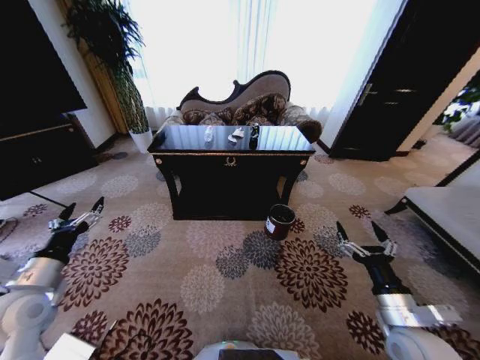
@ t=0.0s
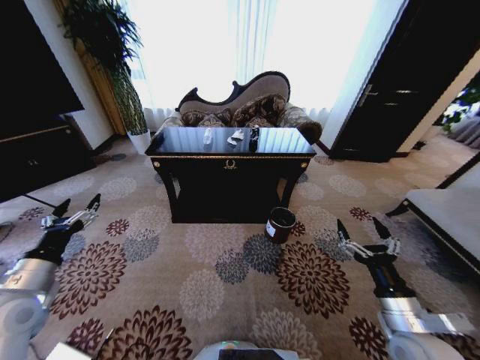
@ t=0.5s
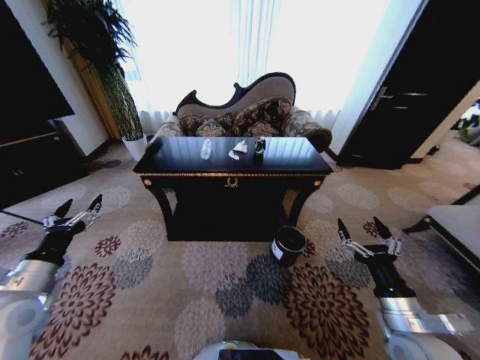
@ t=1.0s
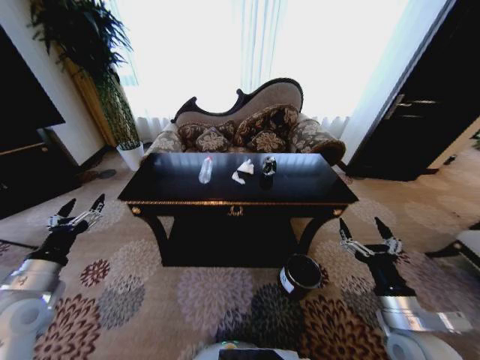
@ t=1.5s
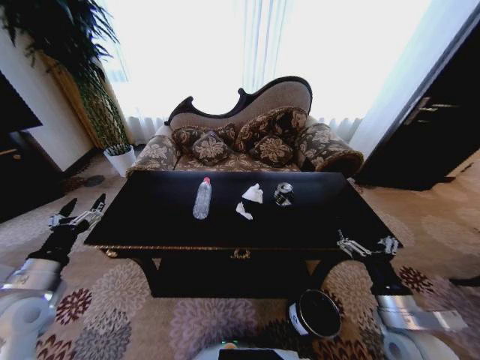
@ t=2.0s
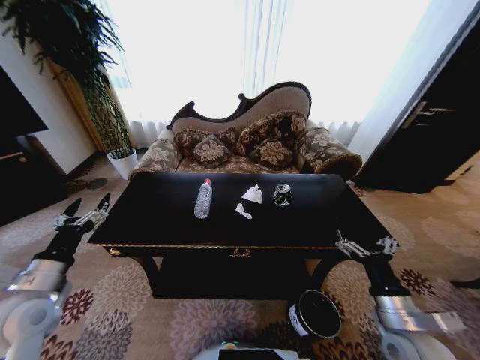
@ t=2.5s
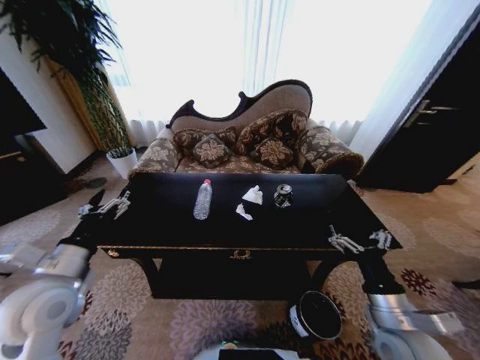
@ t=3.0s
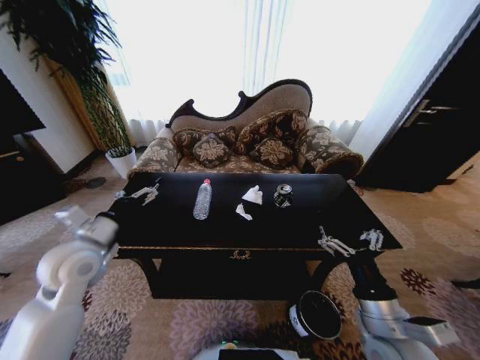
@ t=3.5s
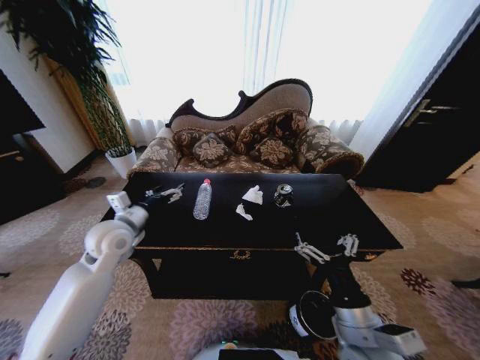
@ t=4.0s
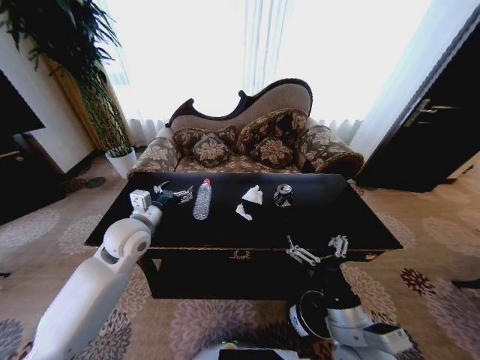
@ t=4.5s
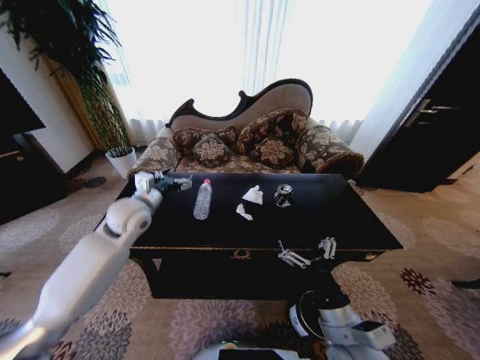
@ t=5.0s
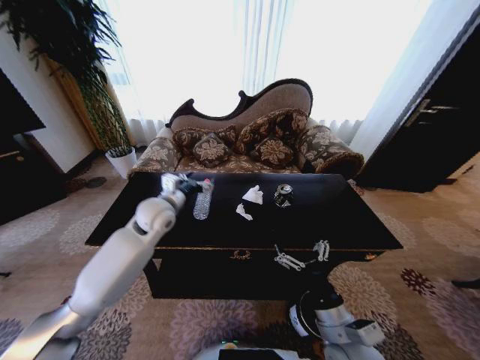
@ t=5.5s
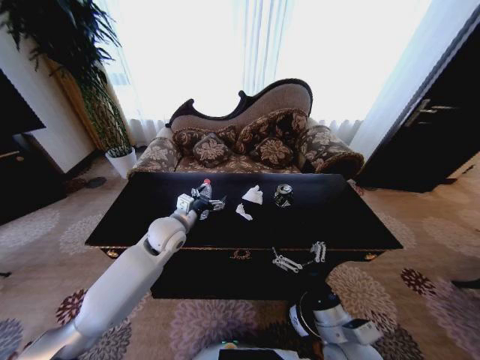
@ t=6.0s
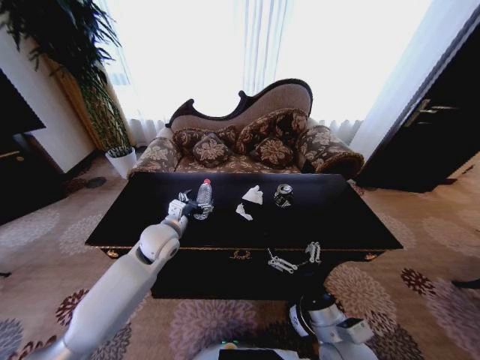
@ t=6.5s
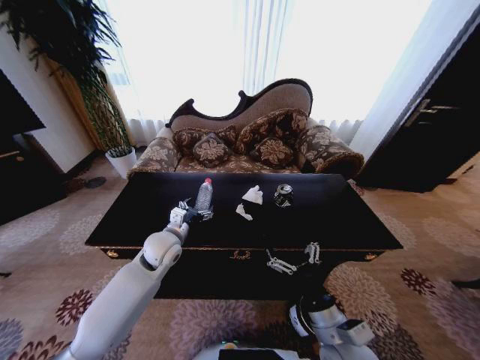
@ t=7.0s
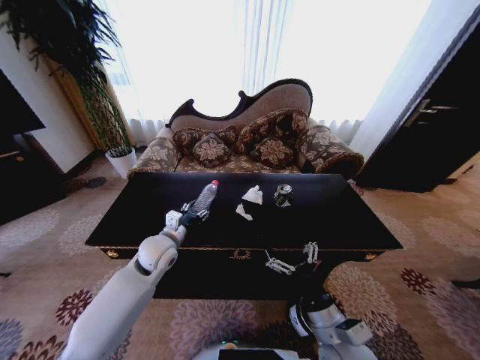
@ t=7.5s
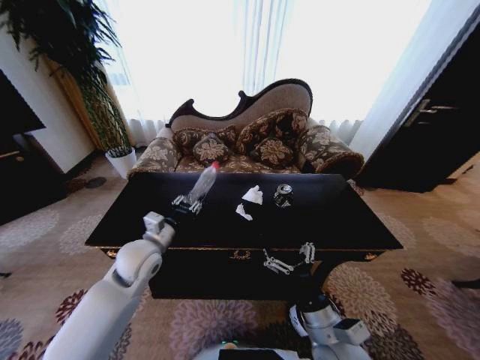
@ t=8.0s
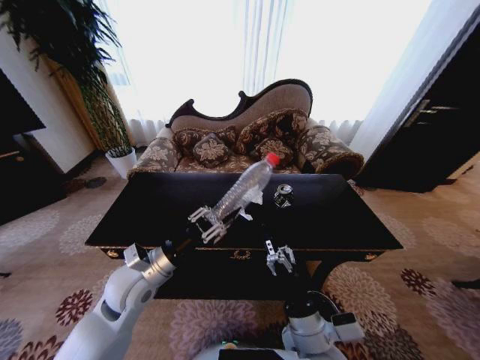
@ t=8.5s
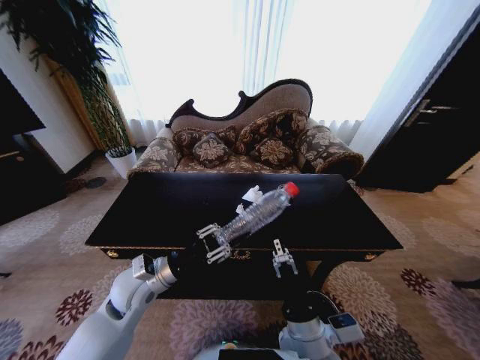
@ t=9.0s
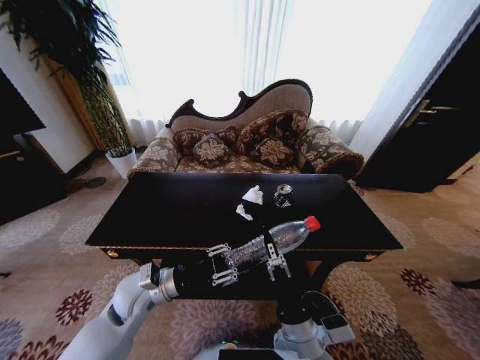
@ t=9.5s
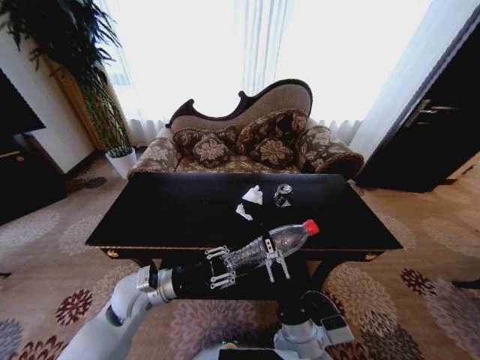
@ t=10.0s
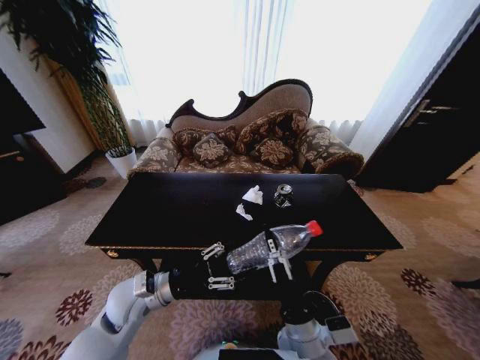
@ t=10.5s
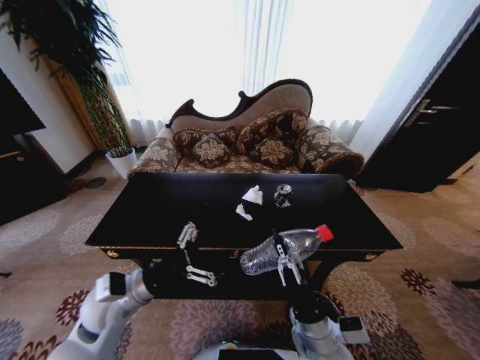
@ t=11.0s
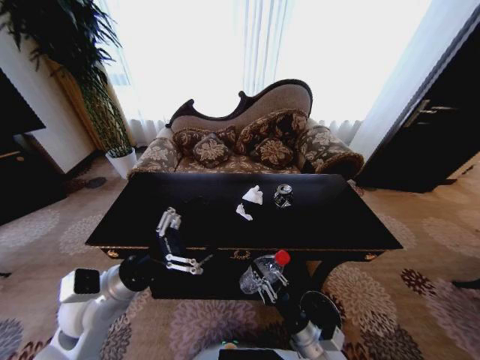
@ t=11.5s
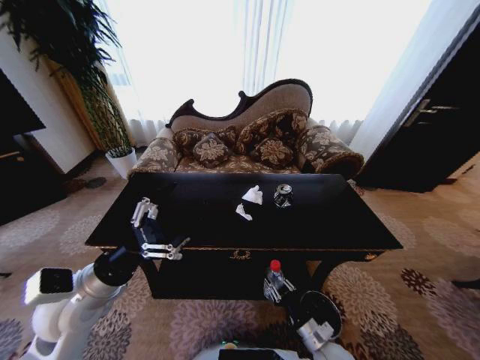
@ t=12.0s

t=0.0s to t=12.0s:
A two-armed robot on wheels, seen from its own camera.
Task of the whole recording: Move to the front of the table and place the trash on the table into the trash bin.
t=2.0s to t=4.0s: The left gripper heads forward and to the right, covering some 20 cm, while the right gripper travels to the left by roughly 10 cm.
t=4.0s to t=6.0s: The left gripper heads to the right, covering about 10 cm.
t=6.0s to t=8.0s: The left gripper moves backward and to the left, about 10 cm, and closes.
t=8.0s to t=10.0s: The left gripper is displaced backward and downward by some 10 cm, while the right gripper goes roughly 5 cm to the left, and closes up.
t=10.0s to t=12.0s: The left gripper moves upward and to the left, some 10 cm, and opens up. Meanwhile the right gripper travels downward and to the right by about 20 cm.

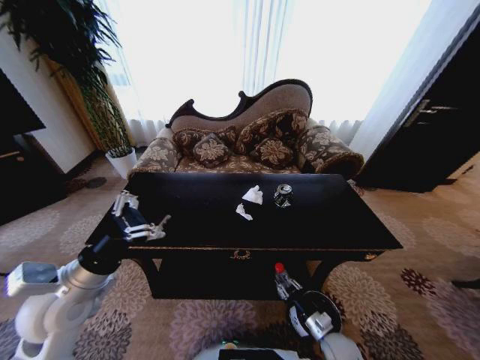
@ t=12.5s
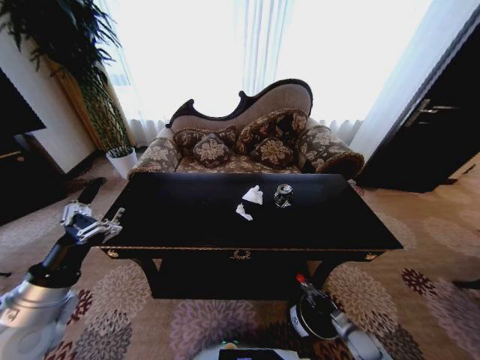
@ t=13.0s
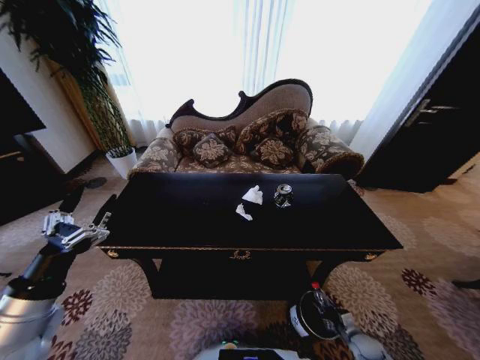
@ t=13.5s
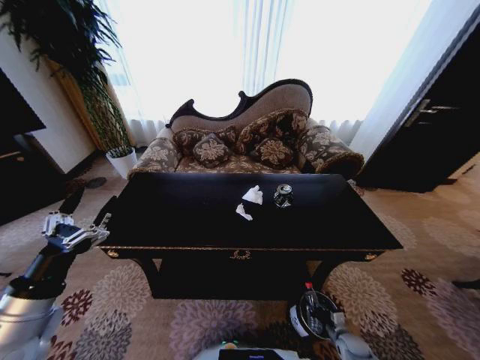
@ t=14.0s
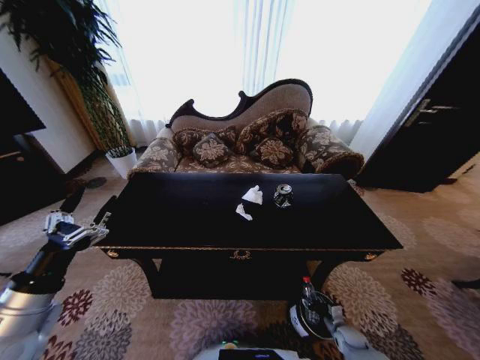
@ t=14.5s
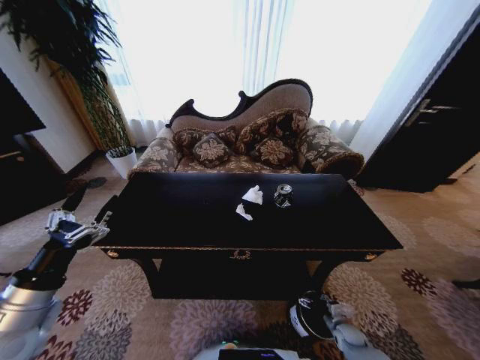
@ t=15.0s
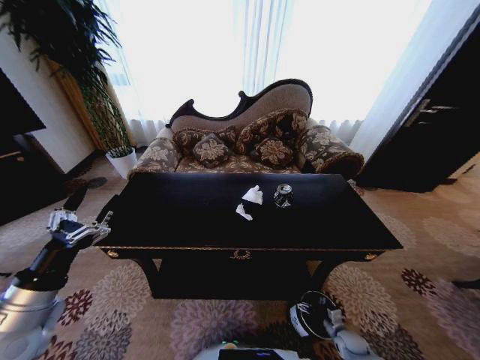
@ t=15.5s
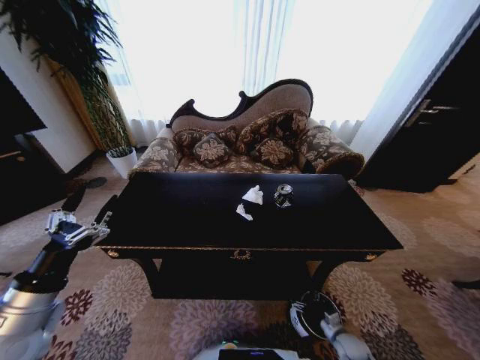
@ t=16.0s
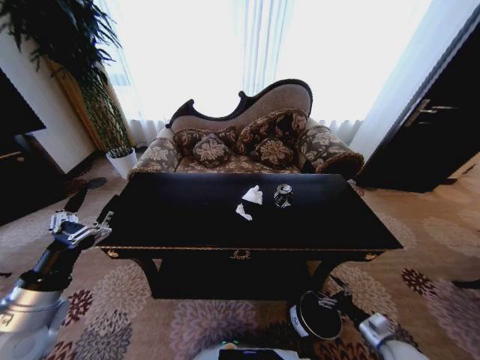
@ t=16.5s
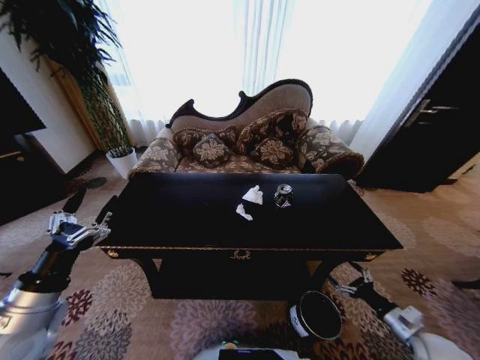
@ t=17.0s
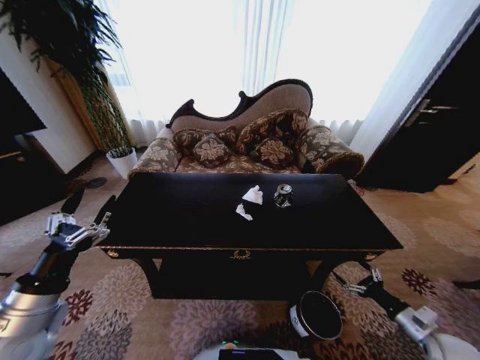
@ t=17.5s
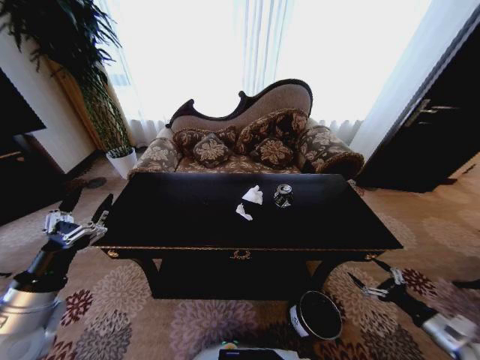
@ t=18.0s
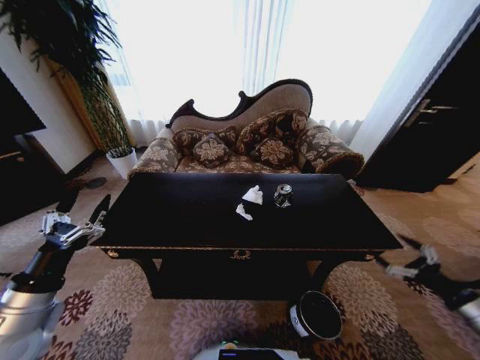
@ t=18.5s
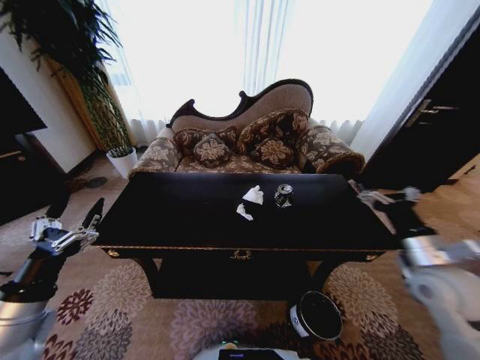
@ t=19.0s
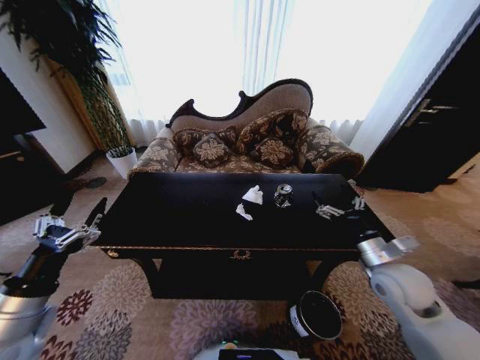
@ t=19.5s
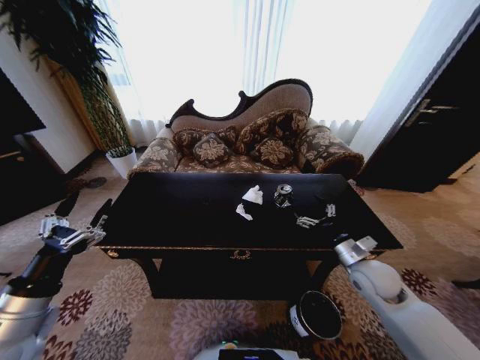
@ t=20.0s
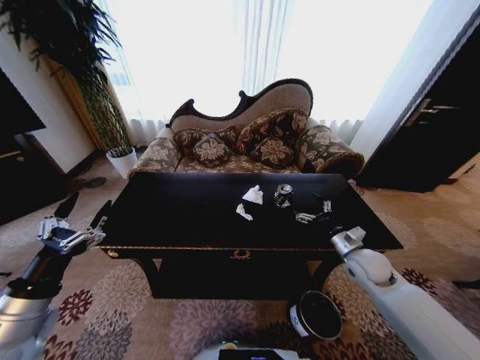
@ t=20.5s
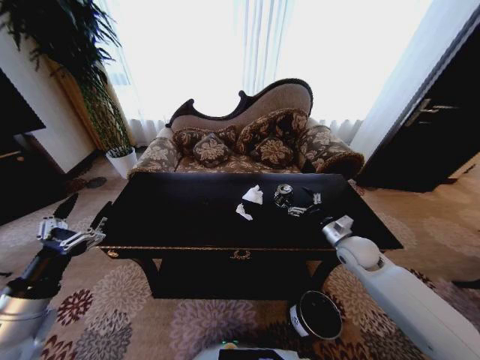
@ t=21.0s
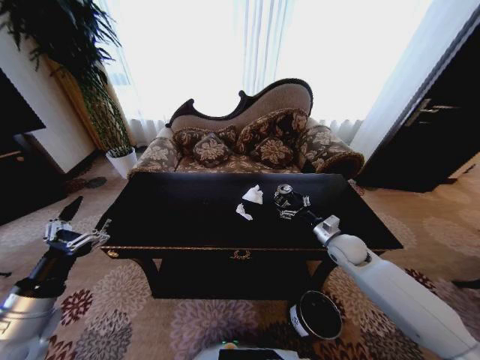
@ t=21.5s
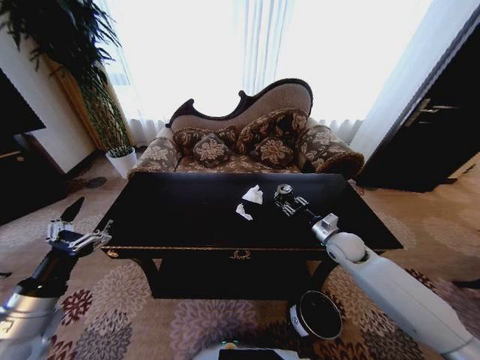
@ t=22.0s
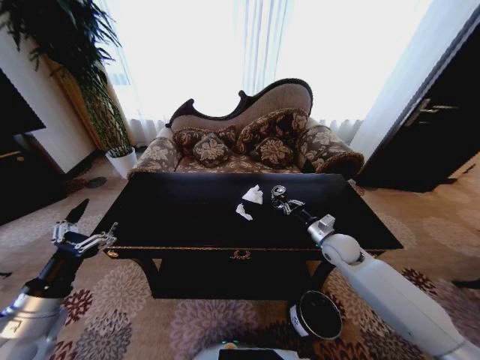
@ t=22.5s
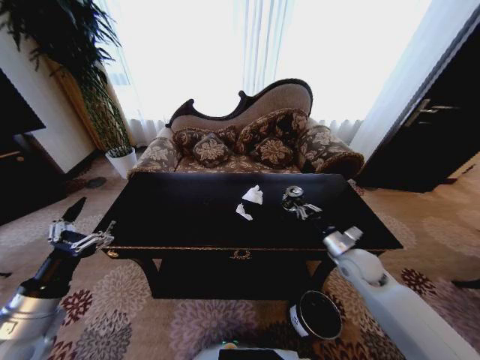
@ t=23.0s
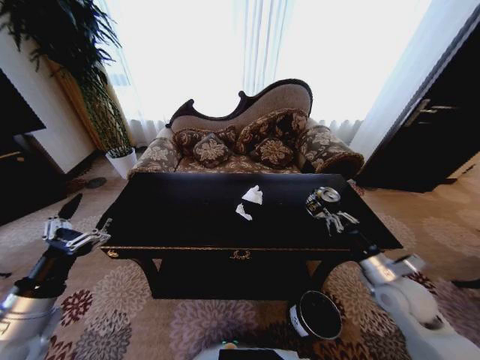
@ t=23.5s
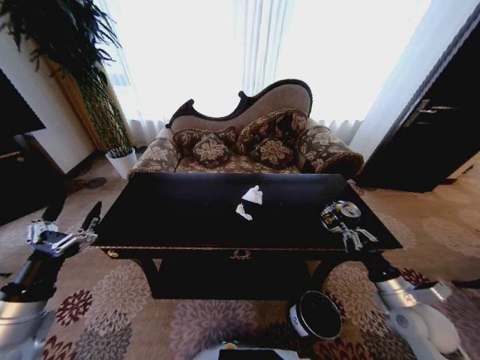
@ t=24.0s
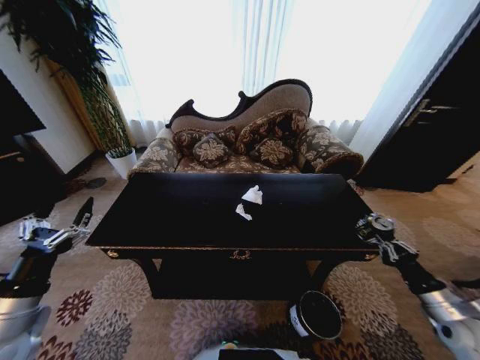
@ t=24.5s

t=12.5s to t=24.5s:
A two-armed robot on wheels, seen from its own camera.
Task of the whole recording: Move to the front of the table and place the trash on the table into the trash bin.
t=12.5s to t=14.5s: The right gripper moves to the right and downward, about 15 cm. The left gripper heads backward and to the left, covering about 10 cm.
t=14.5s to t=16.5s: The right gripper travels upward by approximately 15 cm, and opens up.
t=16.5s to t=18.5s: The right gripper heads upward and to the right, covering about 25 cm.
t=18.5s to t=20.5s: The right gripper heads to the left and forward, covering about 30 cm.
t=20.5s to t=22.5s: The right gripper shifts approximately 5 cm forward, and closes up.
t=22.5s to t=24.5s: The right gripper is displaced backward and to the right by approximately 30 cm.

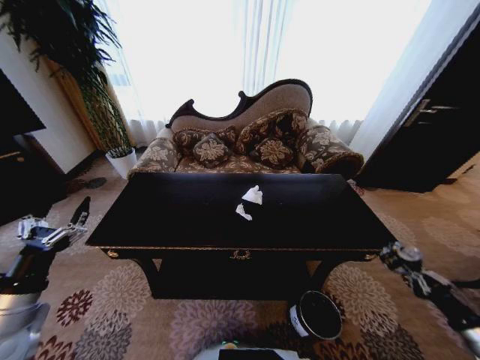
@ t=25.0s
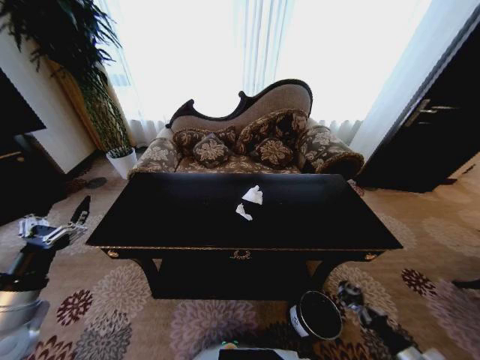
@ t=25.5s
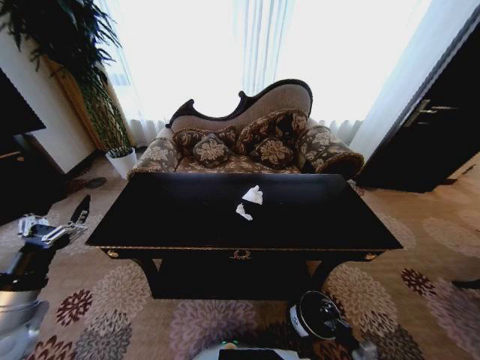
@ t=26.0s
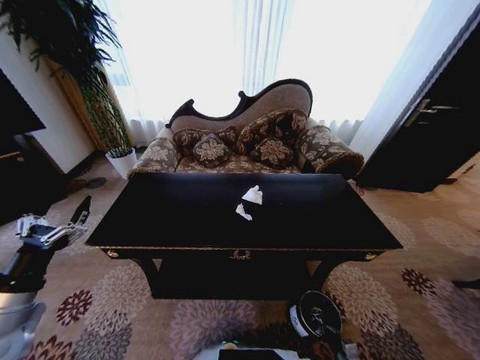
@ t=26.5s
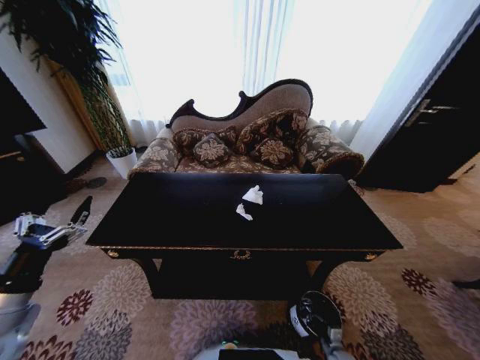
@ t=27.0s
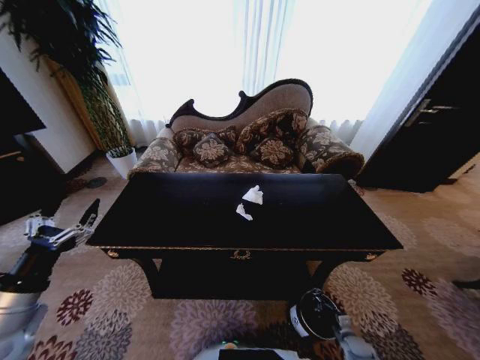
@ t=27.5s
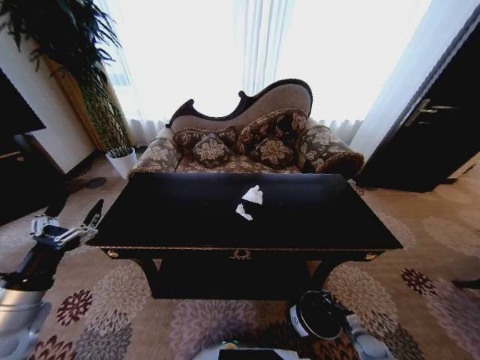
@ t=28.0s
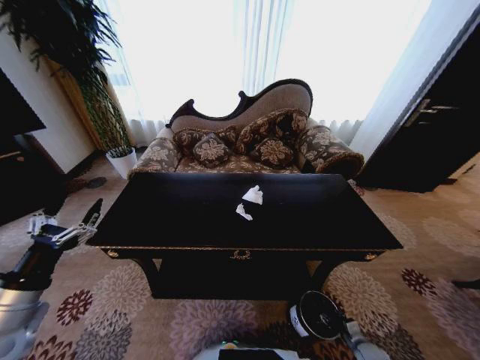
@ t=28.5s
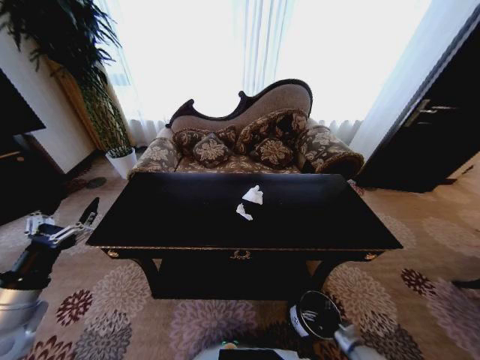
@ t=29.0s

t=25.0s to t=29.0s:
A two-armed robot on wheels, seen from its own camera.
Task of the whole recording: Move to the front of the table and place the trash on the table into the trash bin.
t=25.0s to t=27.0s: The right gripper moves downward and to the left, roughly 40 cm.
t=27.0s to t=29.0s: The right gripper moves upward and to the right, roughly 10 cm, and opens.
